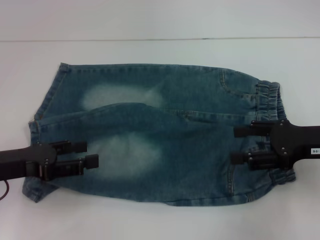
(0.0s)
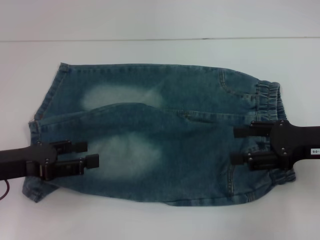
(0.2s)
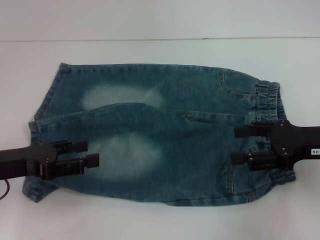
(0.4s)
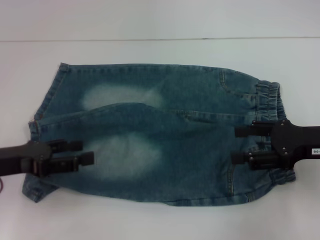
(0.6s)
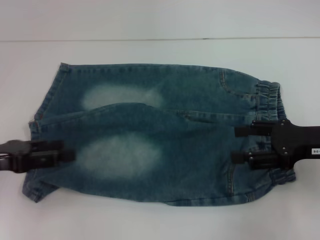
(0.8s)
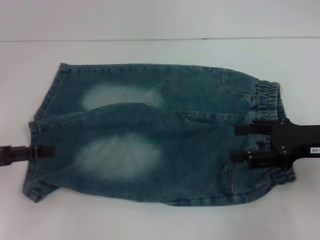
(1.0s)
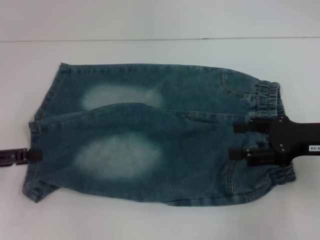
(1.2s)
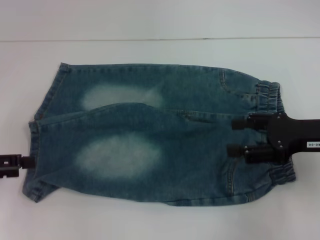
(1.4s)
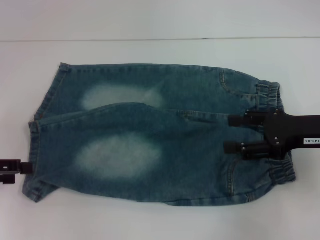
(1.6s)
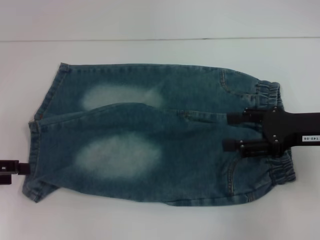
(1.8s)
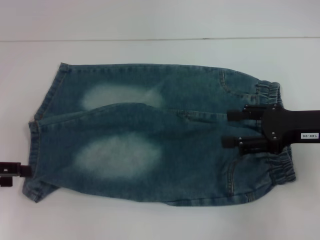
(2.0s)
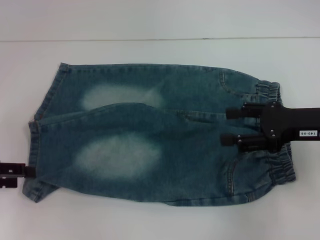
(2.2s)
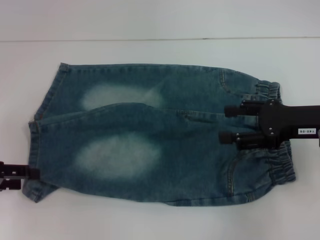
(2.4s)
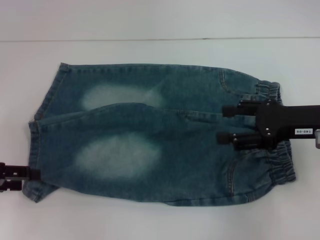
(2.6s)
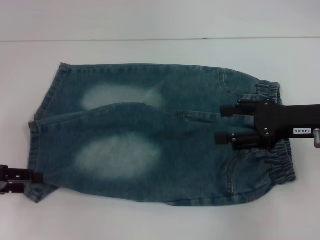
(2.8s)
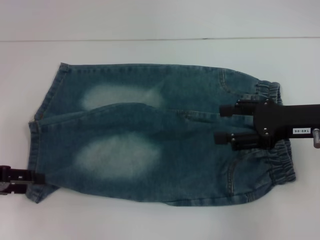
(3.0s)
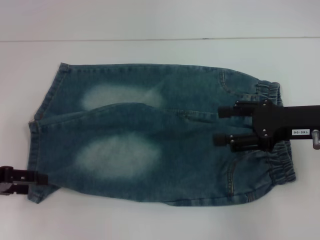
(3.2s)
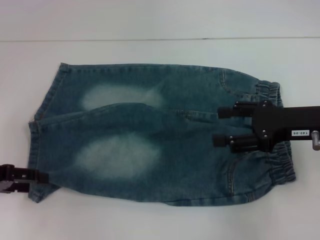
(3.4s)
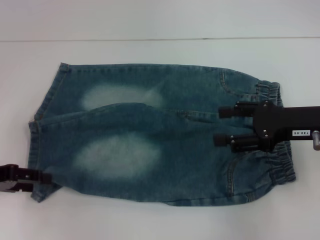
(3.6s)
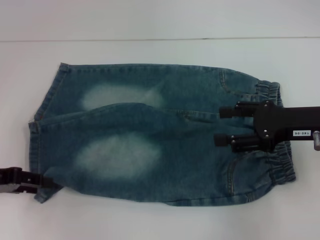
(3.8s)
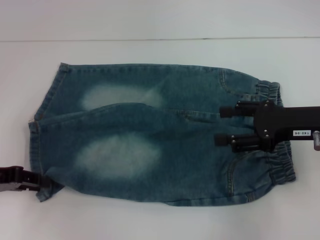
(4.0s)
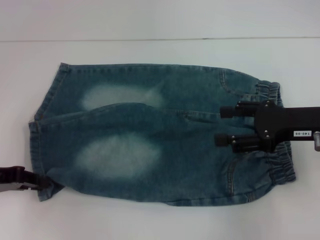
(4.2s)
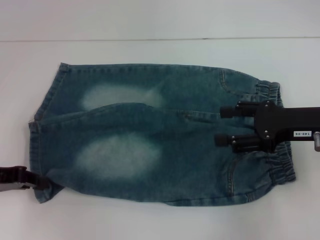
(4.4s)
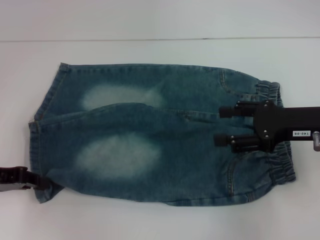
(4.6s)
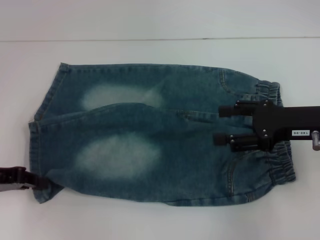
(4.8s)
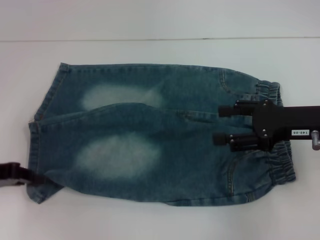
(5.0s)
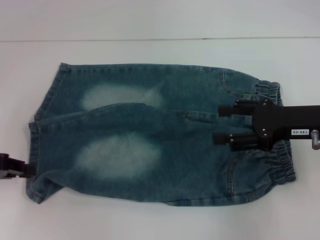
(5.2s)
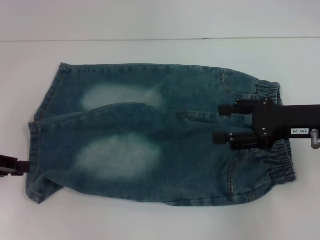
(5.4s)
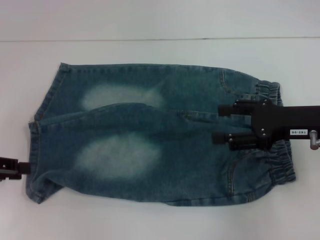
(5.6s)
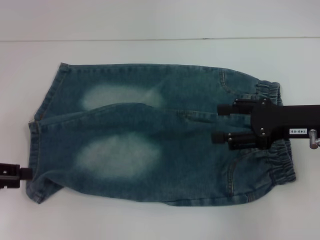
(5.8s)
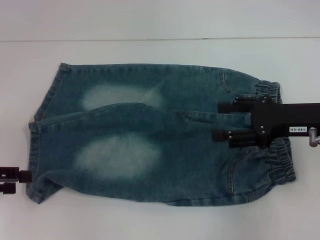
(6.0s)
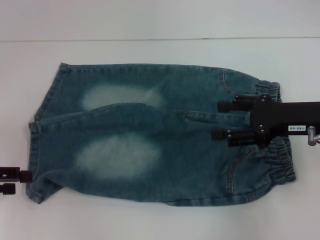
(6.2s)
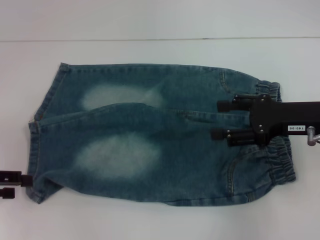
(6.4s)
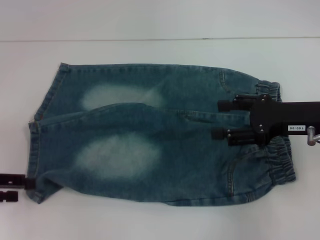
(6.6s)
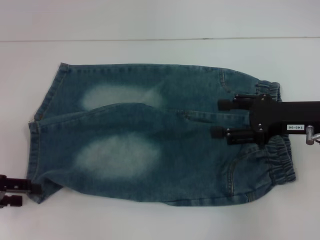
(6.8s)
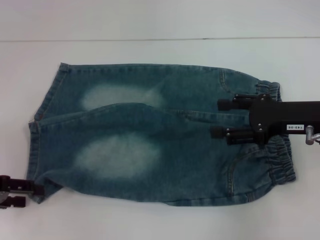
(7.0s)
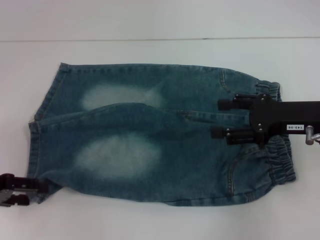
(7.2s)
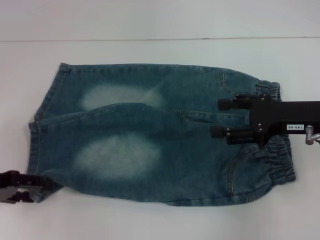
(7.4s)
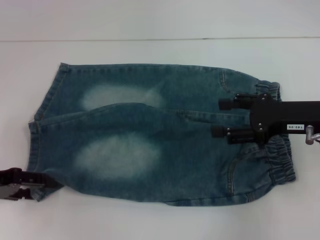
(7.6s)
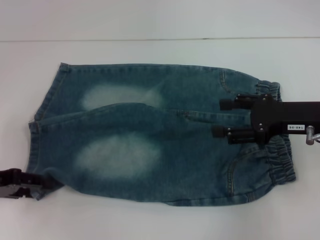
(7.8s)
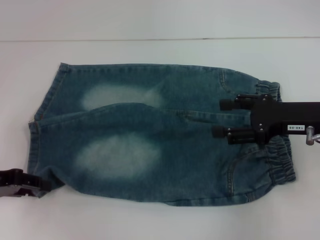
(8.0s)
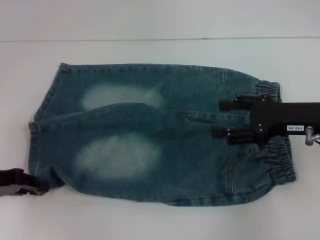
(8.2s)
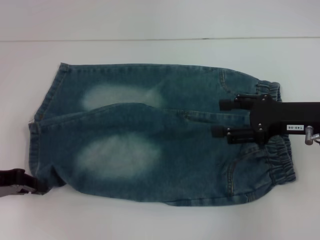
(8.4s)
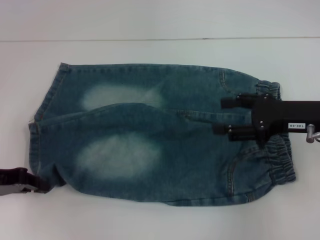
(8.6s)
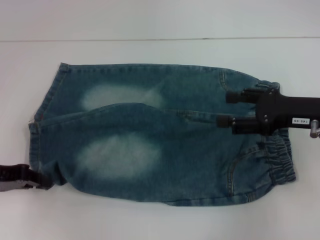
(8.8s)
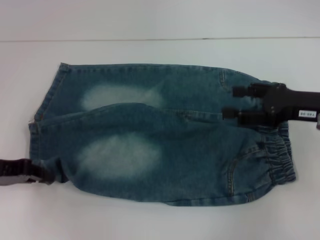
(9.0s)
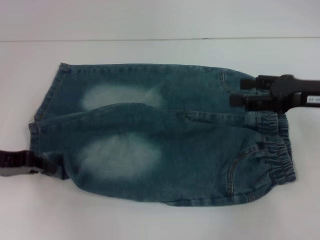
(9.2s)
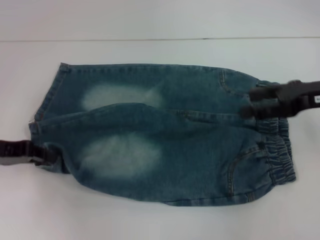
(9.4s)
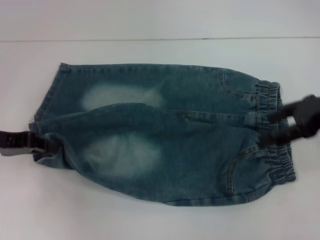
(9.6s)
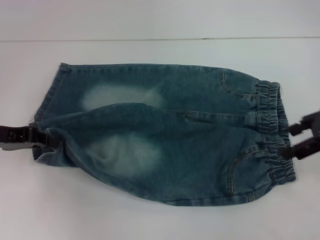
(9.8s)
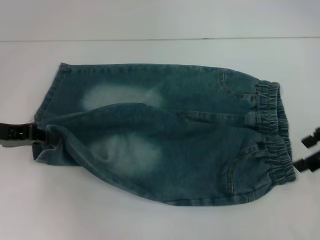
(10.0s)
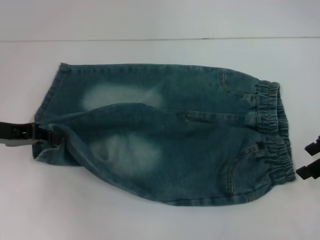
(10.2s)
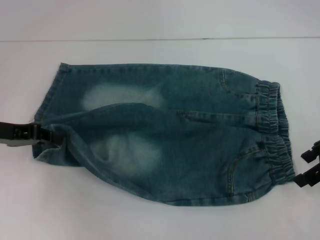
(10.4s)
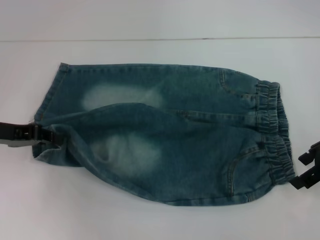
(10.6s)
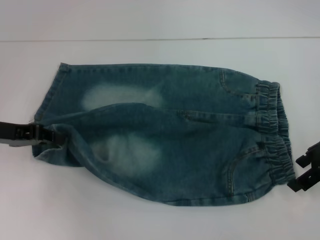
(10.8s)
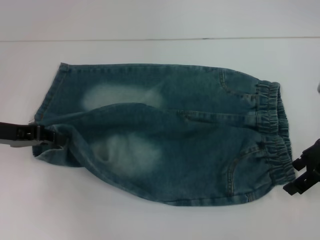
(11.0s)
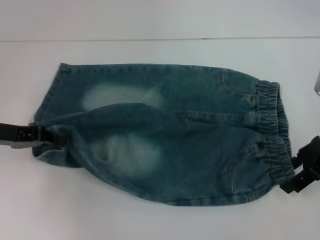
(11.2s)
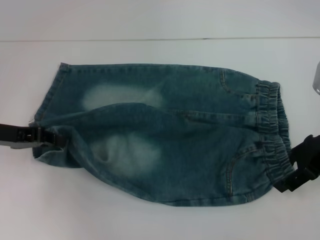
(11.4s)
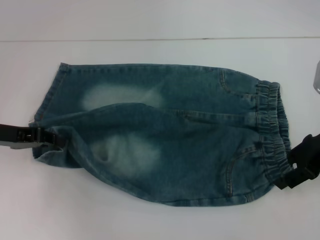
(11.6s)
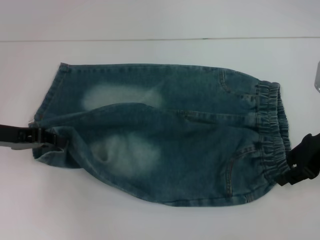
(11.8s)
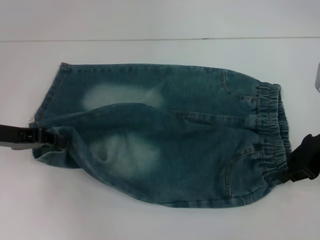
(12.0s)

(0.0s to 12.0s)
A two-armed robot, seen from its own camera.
Step, 0.0s - 8.6s: Grab the lower left pant leg with your left hand.
0.0s - 1.6s: The left gripper goes about 5 cm to the left.
1.6s - 3.0s: The grippers make only small movements.
3.0s - 4.4s: The left gripper closes up.
4.4s - 6.0s: The left gripper ends up approximately 5 cm from where it was, and opens its fingers.
6.0s - 7.6s: The grippers make only small movements.
7.6s - 9.0s: The left gripper closes its fingers.
10.4s - 12.0s: The right gripper closes.

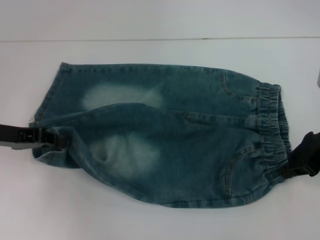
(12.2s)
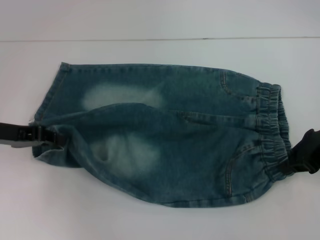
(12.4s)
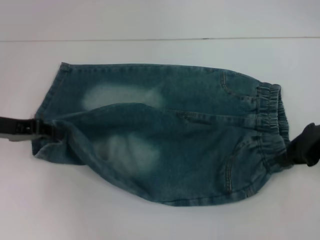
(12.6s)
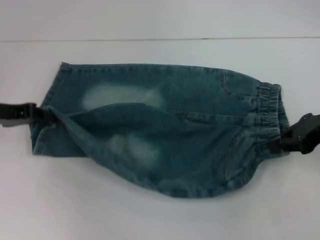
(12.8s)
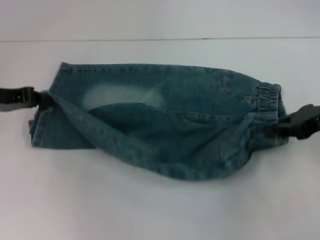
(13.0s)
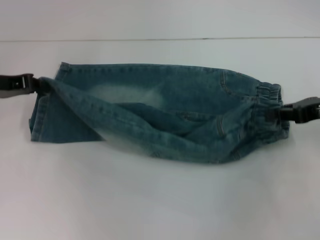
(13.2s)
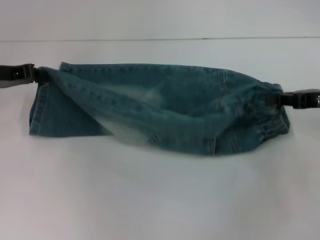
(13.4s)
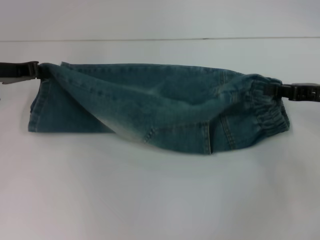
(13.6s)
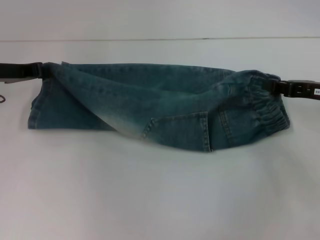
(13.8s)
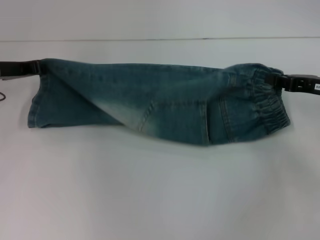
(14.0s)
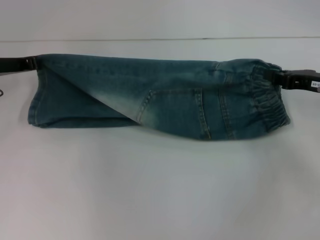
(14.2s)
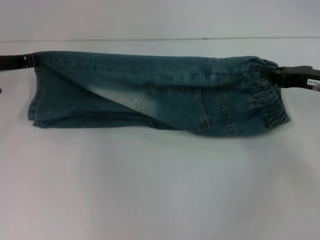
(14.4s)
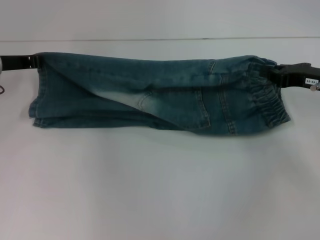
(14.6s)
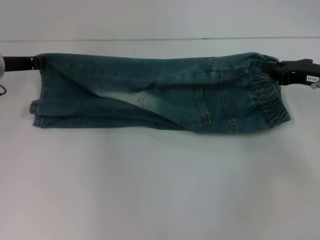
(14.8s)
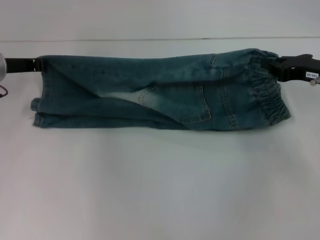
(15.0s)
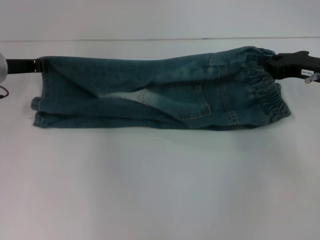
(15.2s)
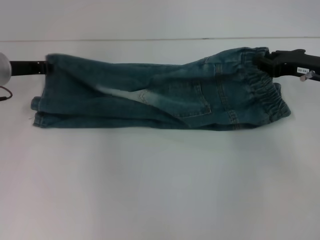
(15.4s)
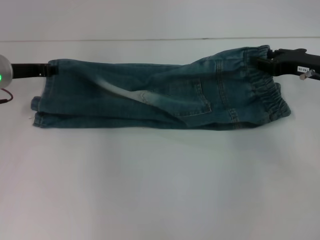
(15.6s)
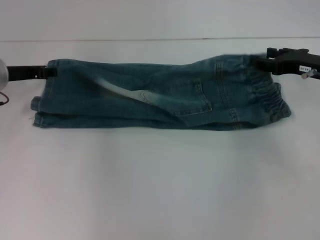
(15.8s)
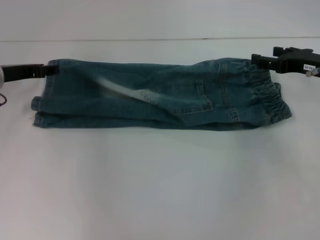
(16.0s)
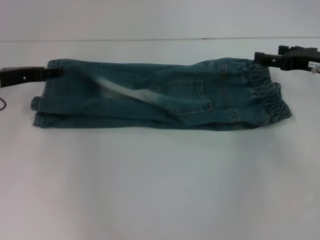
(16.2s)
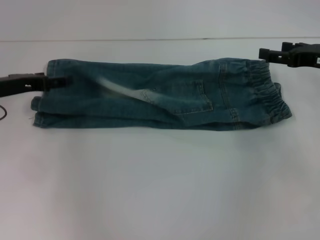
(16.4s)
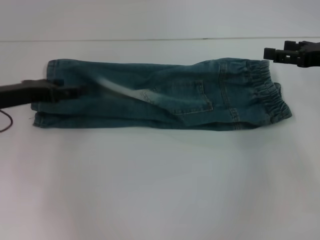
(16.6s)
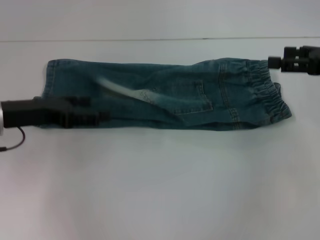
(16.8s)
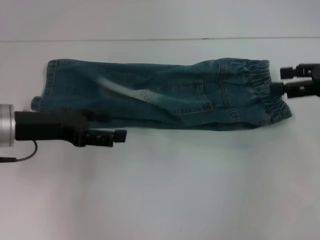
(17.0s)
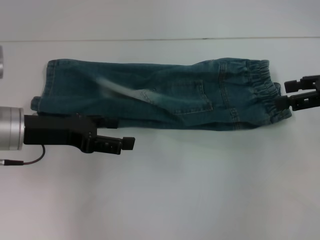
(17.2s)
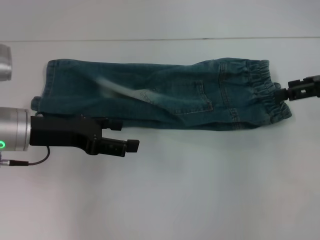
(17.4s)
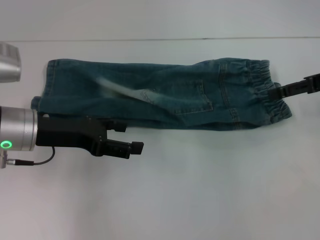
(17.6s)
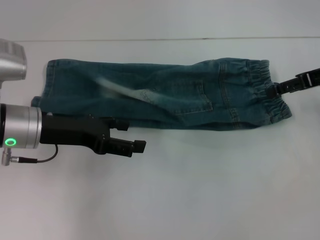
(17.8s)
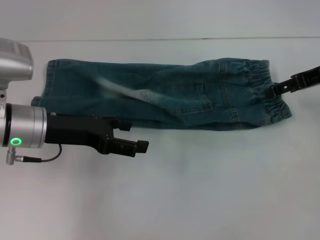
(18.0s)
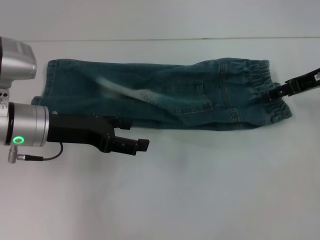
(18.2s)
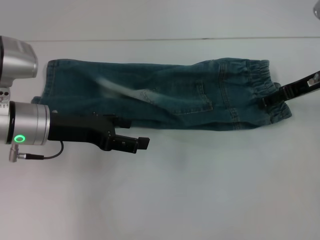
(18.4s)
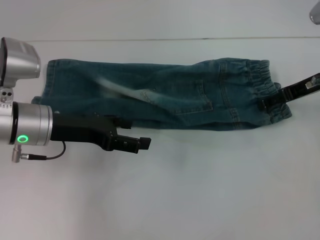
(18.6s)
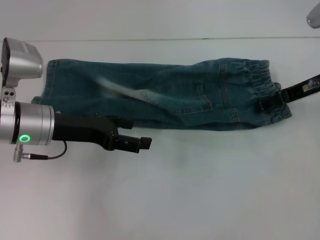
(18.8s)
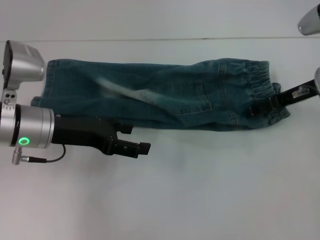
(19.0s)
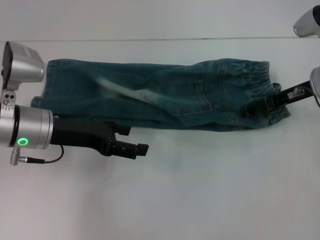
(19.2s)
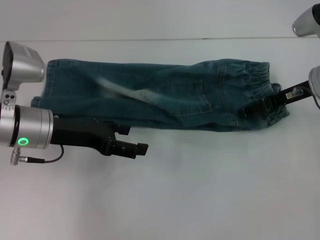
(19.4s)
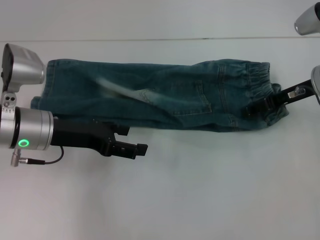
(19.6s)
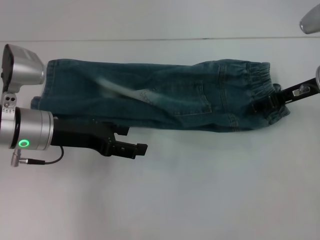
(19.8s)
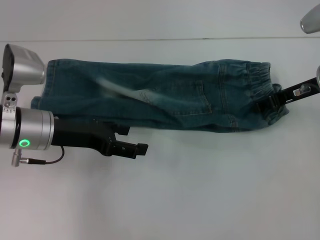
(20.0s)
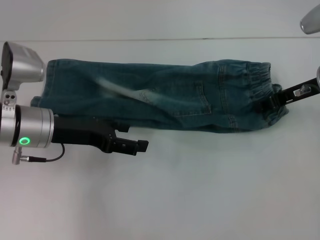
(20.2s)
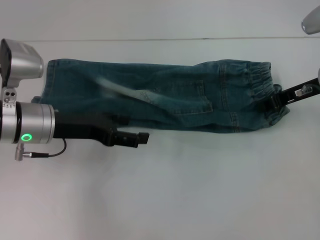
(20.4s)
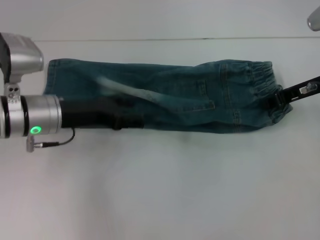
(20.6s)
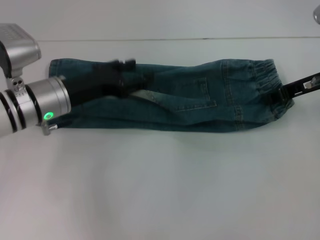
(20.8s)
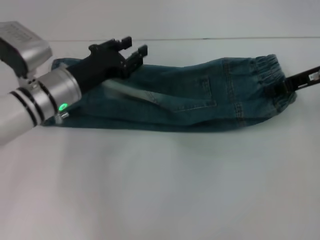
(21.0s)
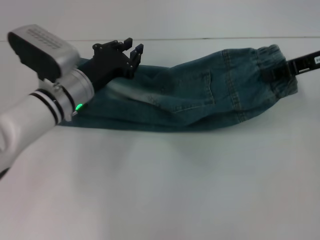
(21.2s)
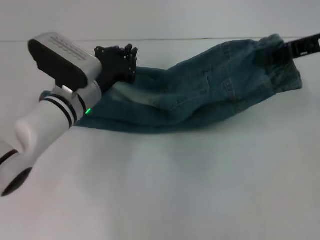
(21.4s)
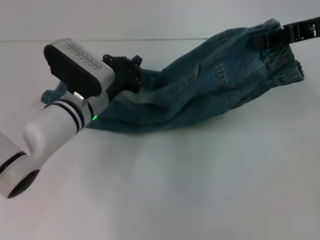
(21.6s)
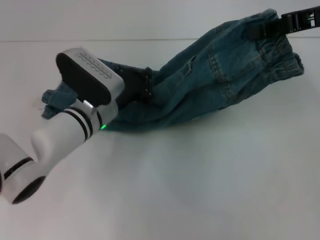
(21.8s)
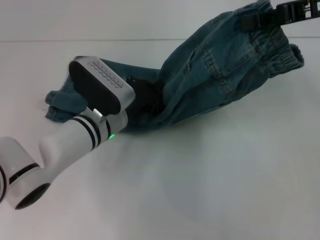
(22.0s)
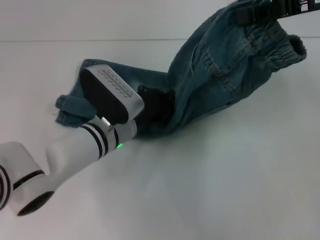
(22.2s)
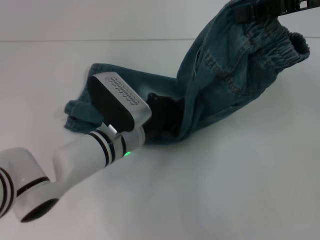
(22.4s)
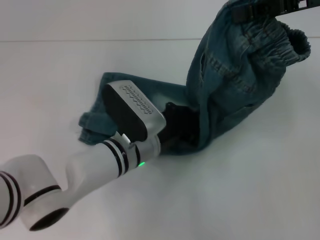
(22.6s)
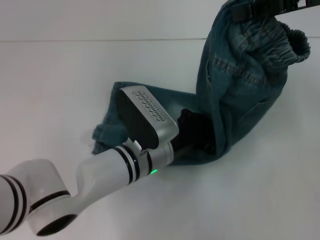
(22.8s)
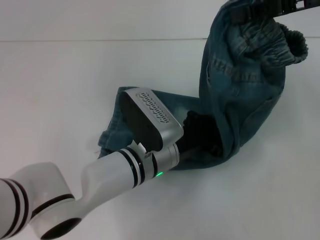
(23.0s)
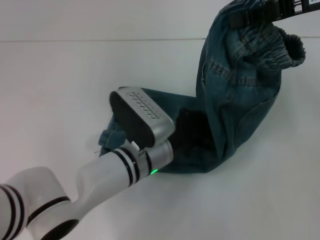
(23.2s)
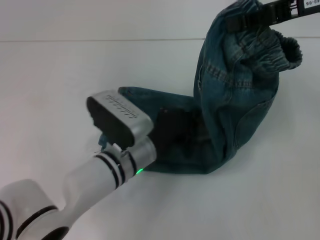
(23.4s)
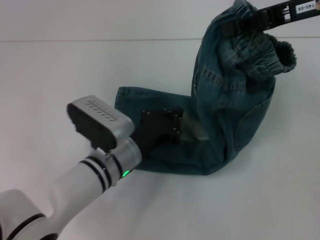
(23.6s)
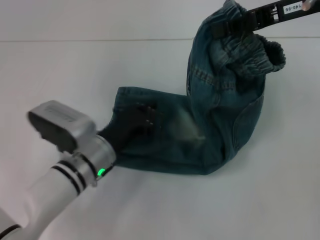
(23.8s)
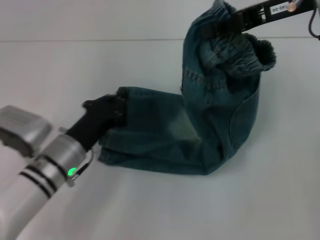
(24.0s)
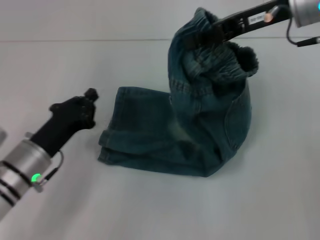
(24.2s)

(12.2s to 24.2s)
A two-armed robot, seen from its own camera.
Step, 12.4s - 16.2s: Fold upward with your right hand.
Step, 16.4s - 20.8s: Grab the waistband with your right hand.
Step, 21.0s - 23.4s: Press the middle of the pants with your left hand.
12.2s - 13.8s: The right gripper changes place by about 5 cm. The left gripper heads forward, covering some 10 cm.
15.2s - 16.6s: The right gripper ends up approximately 5 cm from where it was, and opens, while the left gripper goes about 10 cm backward, and opens up.
16.6s - 18.2s: The left gripper moves to the right, about 5 cm, while the right gripper changes place by some 5 cm.
18.2s - 19.8s: There are only small adjustments of the grippers.
19.8s - 21.2s: The left gripper travels to the right by some 5 cm, and closes. The right gripper shifts about 5 cm upward, and closes its fingers.
21.2s - 22.6s: The right gripper goes approximately 10 cm upward. Meanwhile the left gripper moves to the right and backward, about 10 cm, and closes up.
22.6s - 24.2s: The right gripper goes roughly 5 cm to the left. The left gripper moves to the left, roughly 15 cm.
